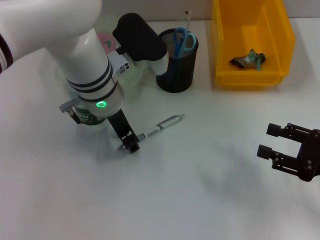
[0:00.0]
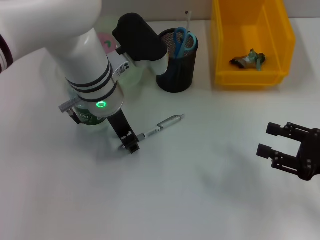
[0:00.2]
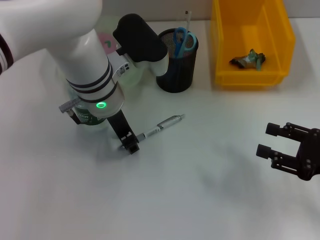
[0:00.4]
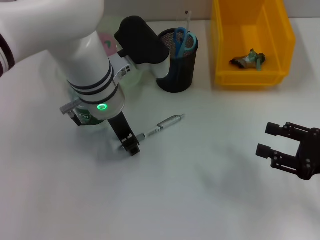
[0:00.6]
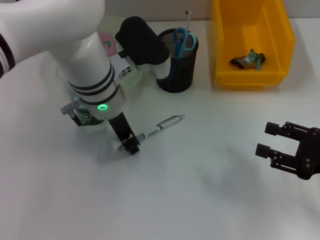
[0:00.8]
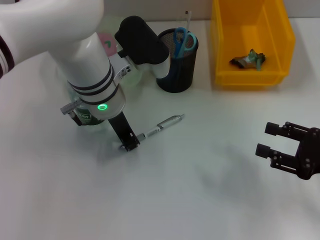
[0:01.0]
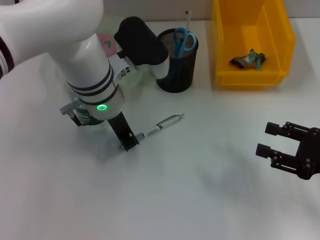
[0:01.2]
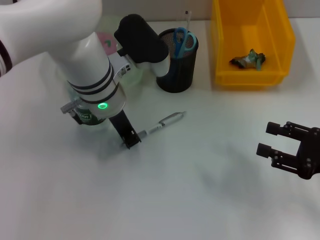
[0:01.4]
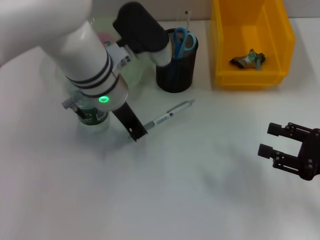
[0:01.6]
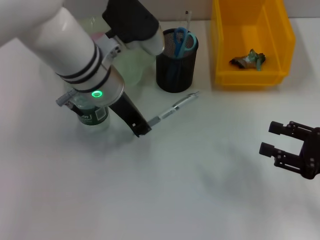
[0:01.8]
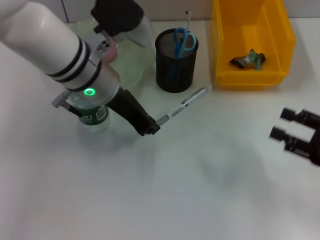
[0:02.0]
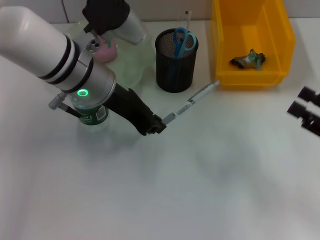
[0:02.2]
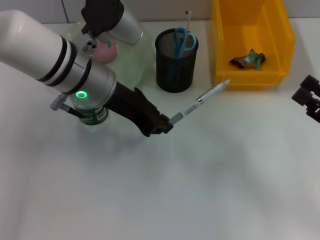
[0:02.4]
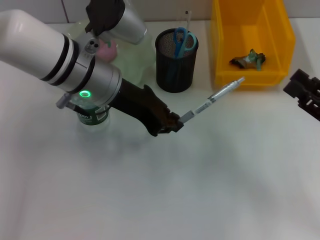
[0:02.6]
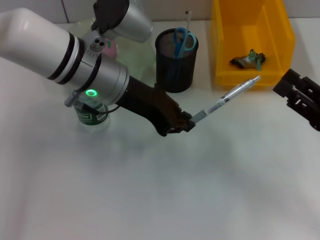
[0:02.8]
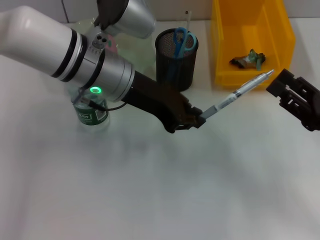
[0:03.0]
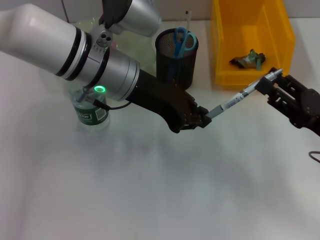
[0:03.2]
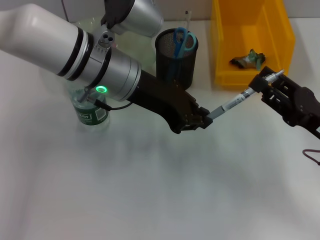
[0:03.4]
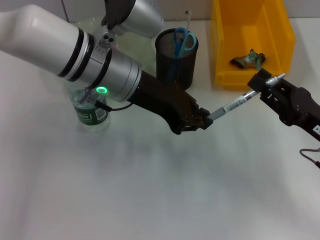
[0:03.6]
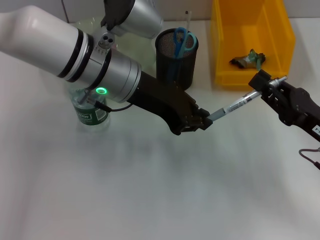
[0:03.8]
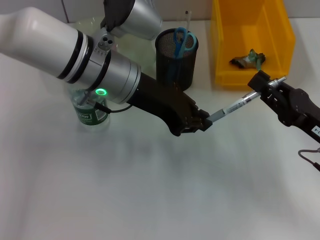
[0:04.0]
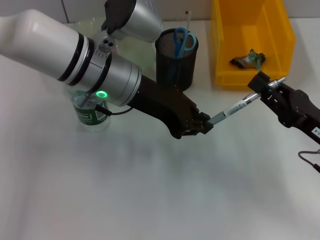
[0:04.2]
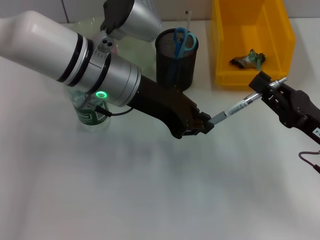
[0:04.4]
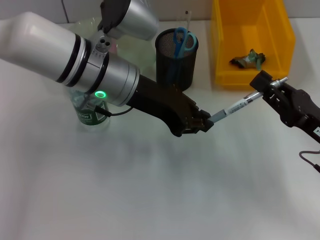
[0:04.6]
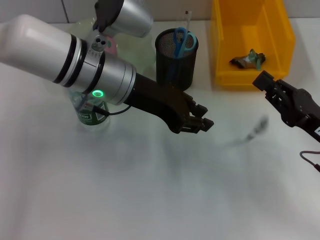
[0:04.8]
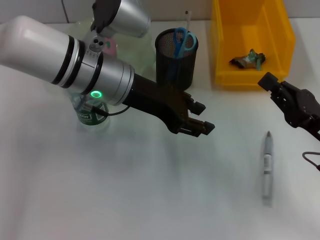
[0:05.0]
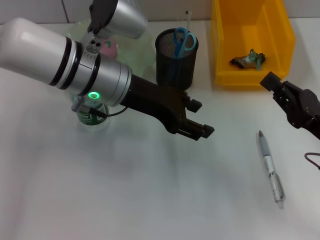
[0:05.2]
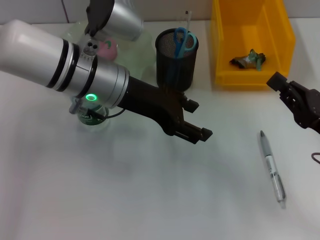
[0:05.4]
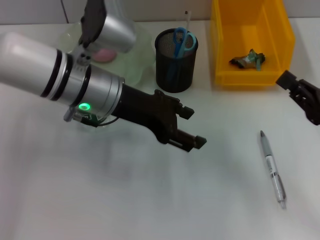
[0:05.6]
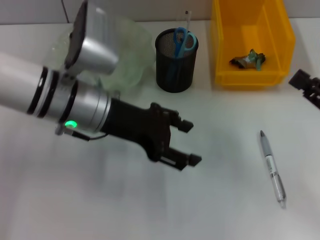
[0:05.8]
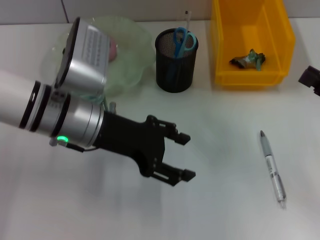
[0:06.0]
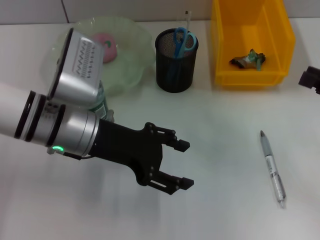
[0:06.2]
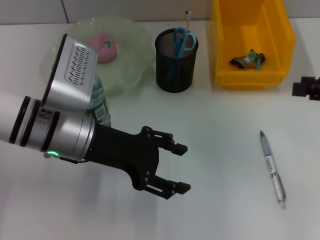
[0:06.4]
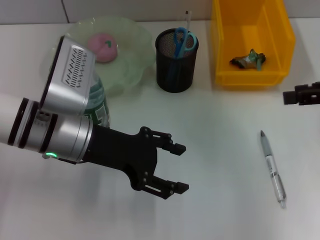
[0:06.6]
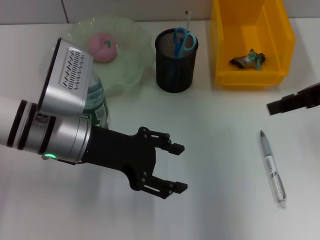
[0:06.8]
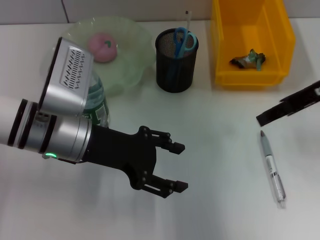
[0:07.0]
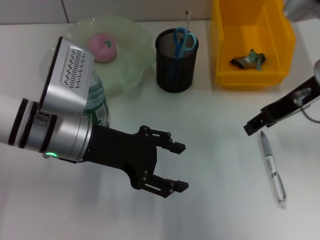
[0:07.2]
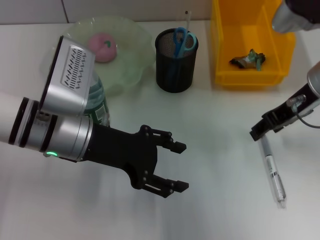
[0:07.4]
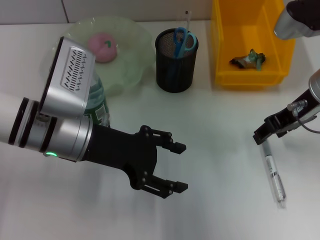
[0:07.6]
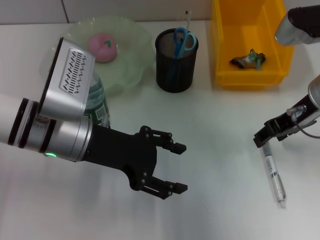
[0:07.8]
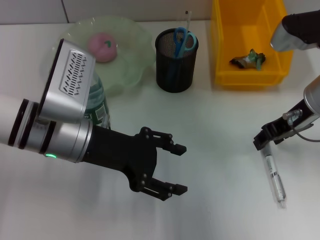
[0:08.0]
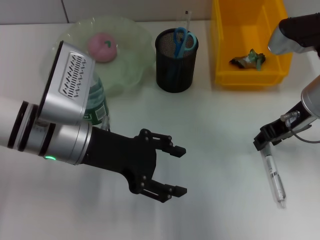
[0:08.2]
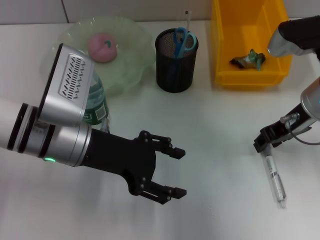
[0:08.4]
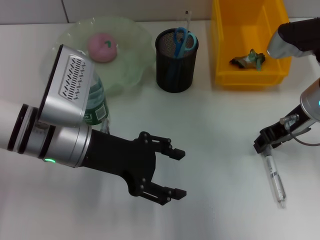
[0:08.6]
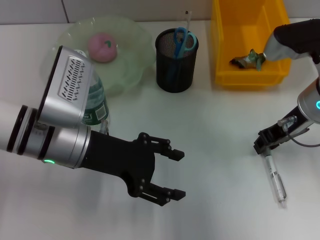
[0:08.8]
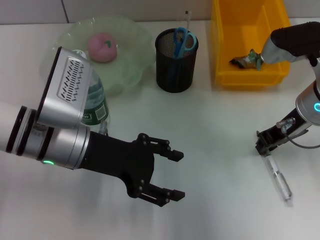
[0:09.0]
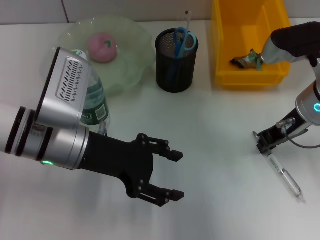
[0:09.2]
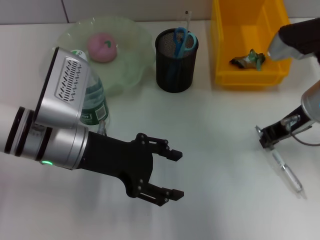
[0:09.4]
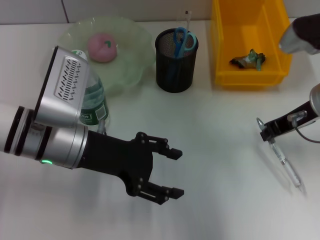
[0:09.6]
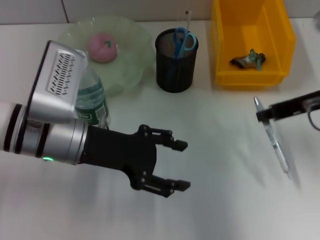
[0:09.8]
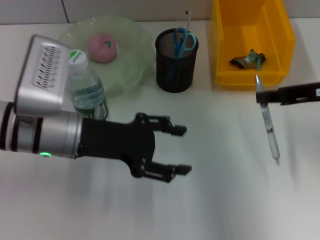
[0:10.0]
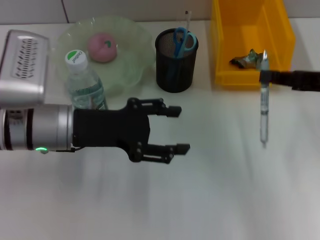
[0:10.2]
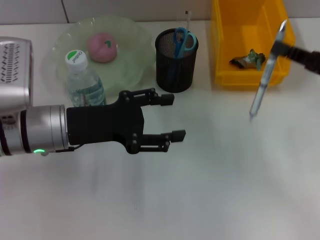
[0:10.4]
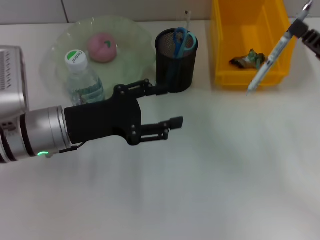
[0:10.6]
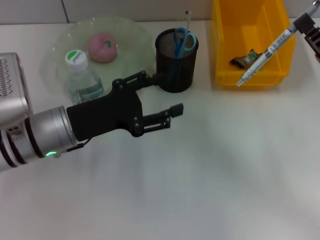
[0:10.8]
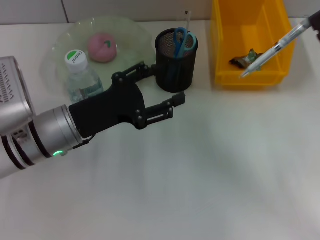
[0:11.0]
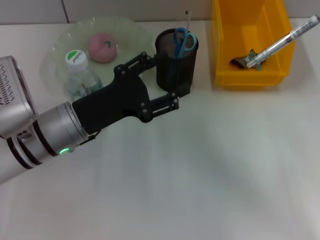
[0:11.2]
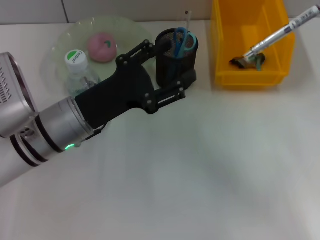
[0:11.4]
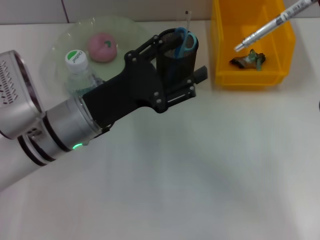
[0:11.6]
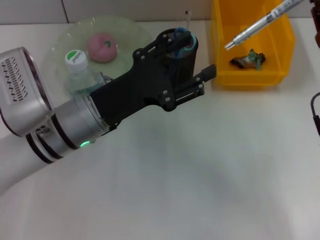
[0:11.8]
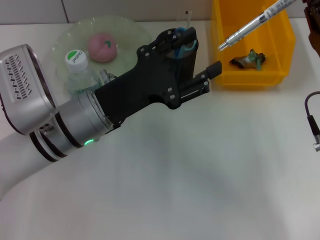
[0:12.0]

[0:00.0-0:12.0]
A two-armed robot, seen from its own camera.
Step, 0:00.0 to 0:04.6: Pass the gray spring-action pen from the left hand to the right hand.
Step, 0:05.0 to 0:09.0: Grab the gray spring-action pen with the right hand.
0:00.0 to 0:01.6: The left gripper closes up.
0:03.0 to 0:04.4: The right gripper closes its fingers.
0:04.4 to 0:06.0: The right gripper goes some 10 cm to the right. Meanwhile the left gripper shifts about 5 cm to the left, and opens its fingers.
0:06.0 to 0:07.6: The right gripper heads to the left, forward and upward, covering some 20 cm.
0:07.6 to 0:09.0: The grippers move only a little.
0:09.0 to 0:10.4: The right gripper heads to the right and backward, covering about 10 cm.
0:10.4 to 0:12.0: The left gripper heads to the right, covering about 5 cm. The right gripper moves to the left, approximately 10 cm.

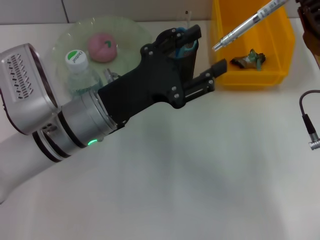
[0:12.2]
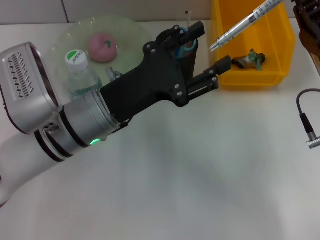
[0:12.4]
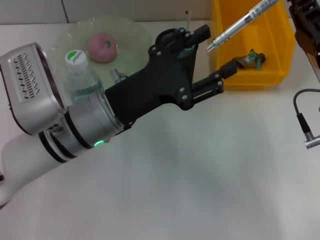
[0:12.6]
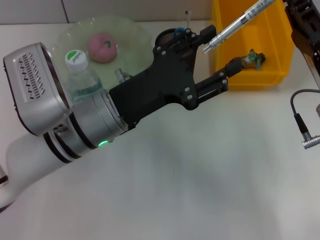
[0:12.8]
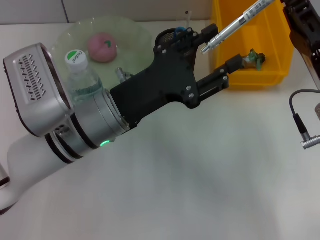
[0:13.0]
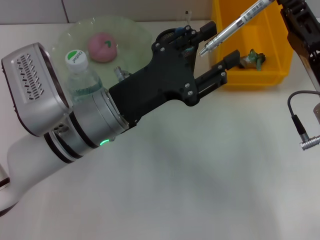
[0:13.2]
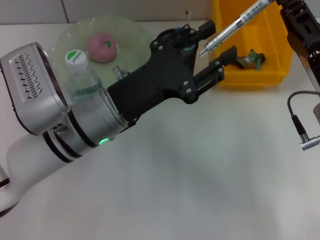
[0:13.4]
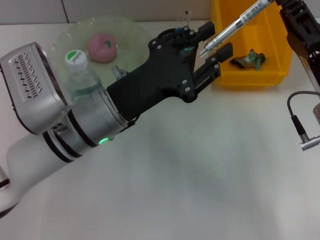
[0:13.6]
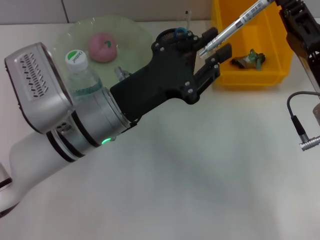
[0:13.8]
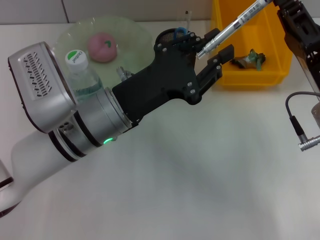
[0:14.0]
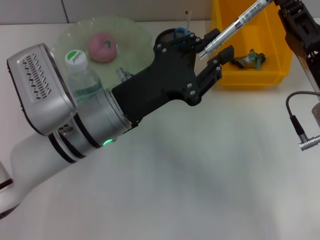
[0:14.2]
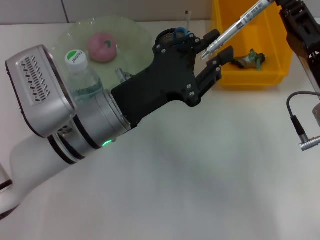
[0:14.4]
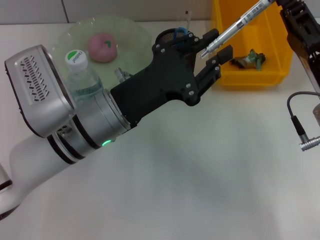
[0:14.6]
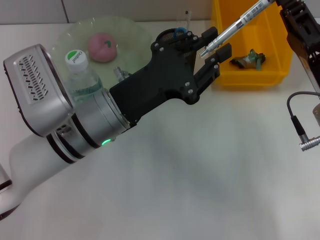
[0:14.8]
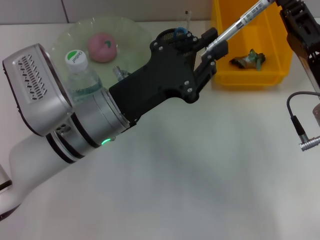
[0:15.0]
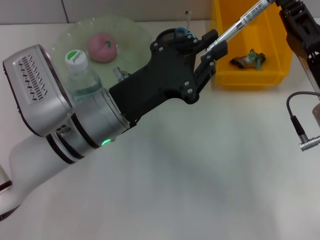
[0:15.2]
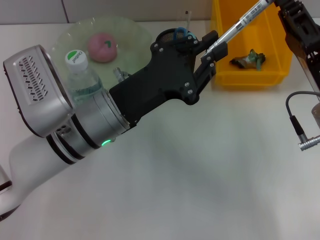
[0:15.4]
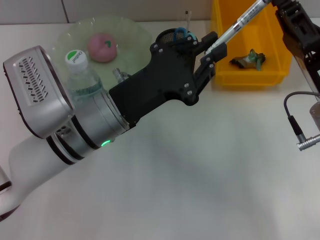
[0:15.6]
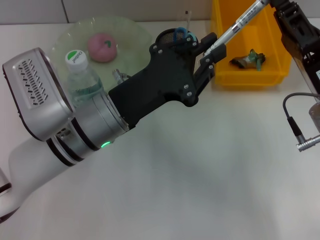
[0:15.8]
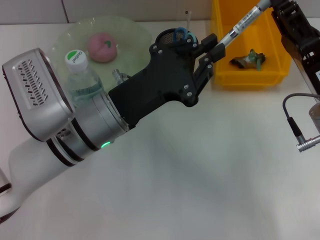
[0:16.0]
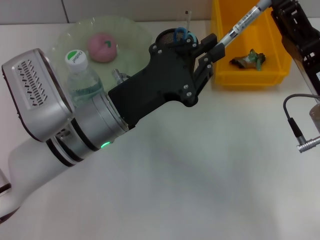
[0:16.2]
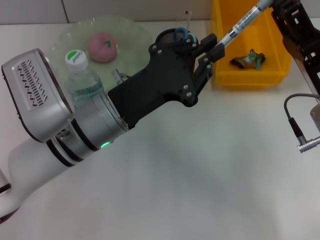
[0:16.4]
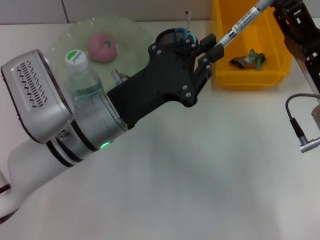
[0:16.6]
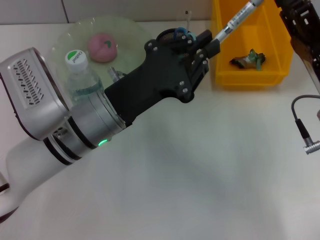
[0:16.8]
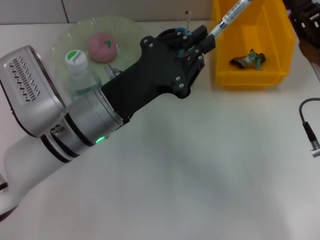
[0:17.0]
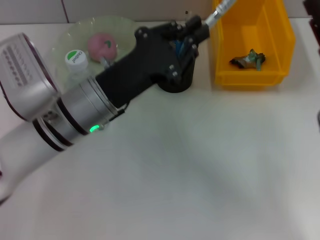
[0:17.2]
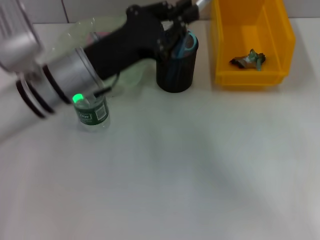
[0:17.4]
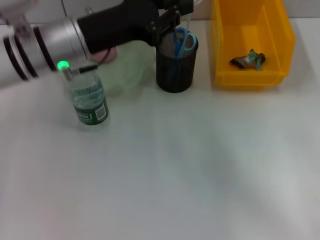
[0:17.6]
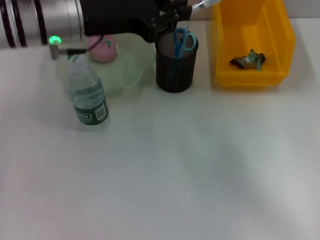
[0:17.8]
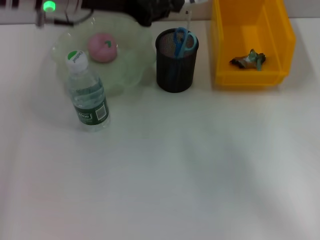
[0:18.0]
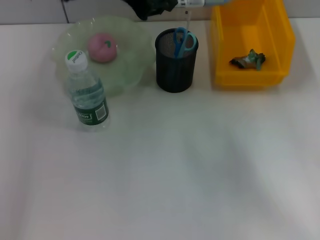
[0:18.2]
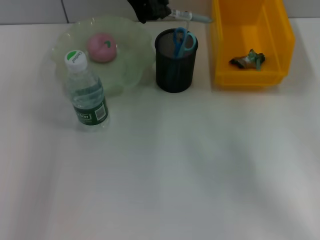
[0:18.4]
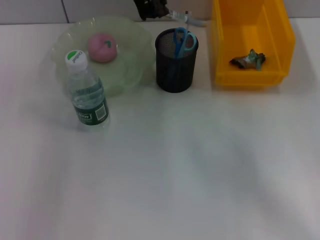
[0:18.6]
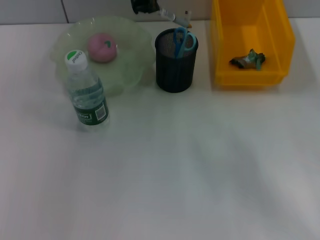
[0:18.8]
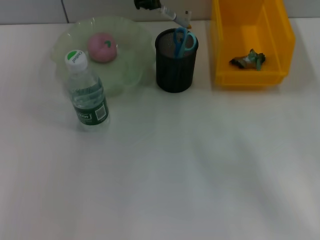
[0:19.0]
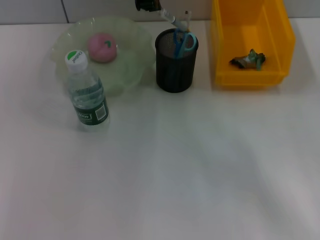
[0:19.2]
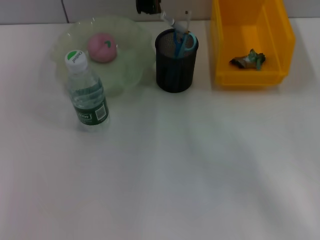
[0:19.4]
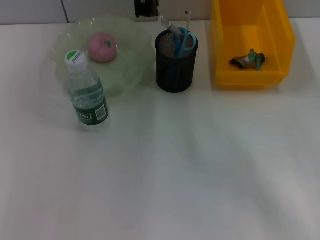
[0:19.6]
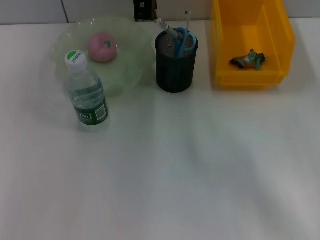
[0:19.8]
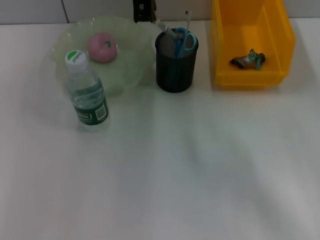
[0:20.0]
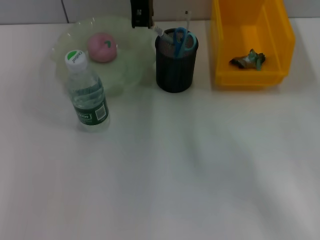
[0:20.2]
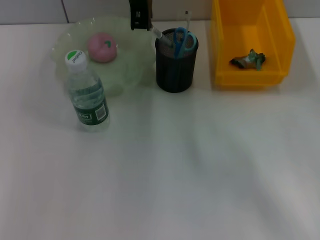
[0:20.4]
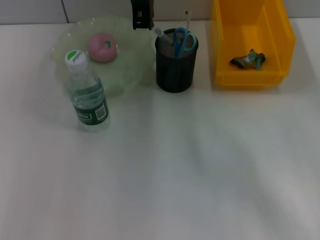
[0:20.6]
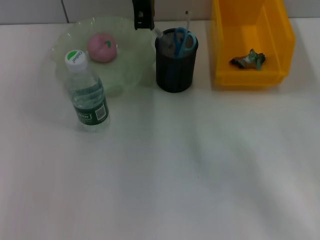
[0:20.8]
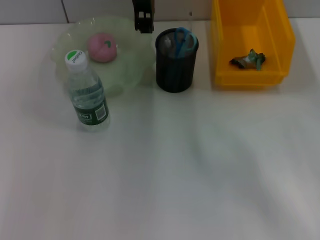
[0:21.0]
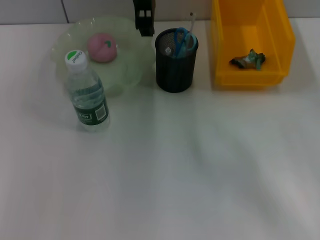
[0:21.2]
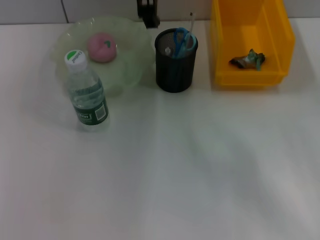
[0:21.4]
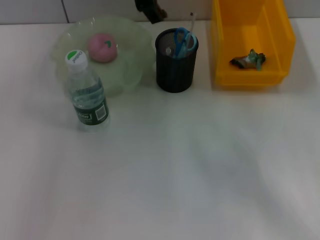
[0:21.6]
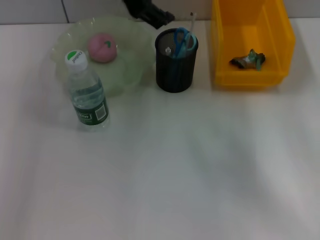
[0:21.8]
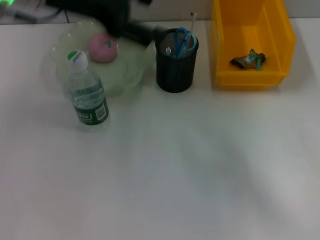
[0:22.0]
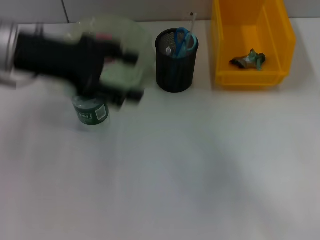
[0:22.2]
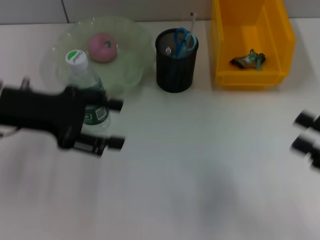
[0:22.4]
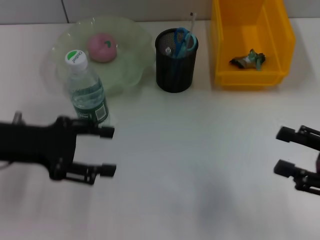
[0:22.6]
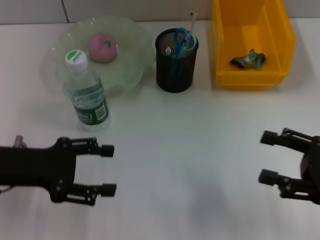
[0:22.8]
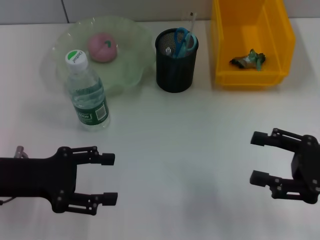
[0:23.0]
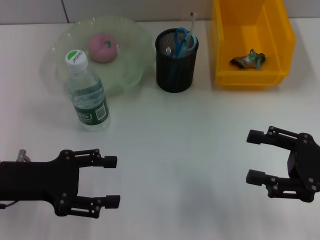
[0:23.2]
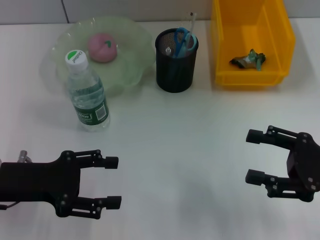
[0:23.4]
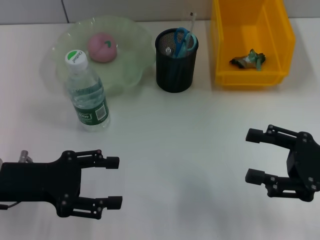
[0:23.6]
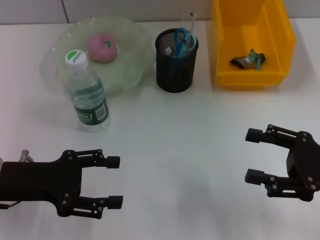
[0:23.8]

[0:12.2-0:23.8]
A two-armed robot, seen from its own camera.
Step, 0:12.2 to 0:16.8: Pass the gray glue from the right hand to the left hand.
Step, 0:17.0 to 0:21.0: Place the gray spring-action pen into the pen holder with the left hand.
0:12.2 to 0:13.6: The grippers make only small movements.
0:13.6 to 0:15.0: Both grippers stay put.
0:15.0 to 0:16.6: The right gripper opens.
0:16.6 to 0:18.0: The left gripper travels upward and forward by about 20 cm; the right gripper heads to the right and backward, covering some 10 cm.
0:18.0 to 0:19.4: The left gripper travels to the right and upward by approximately 15 cm.
0:21.0 to 0:22.4: The left gripper shifts roughly 30 cm to the left, downward and backward, and opens.
0:22.4 to 0:23.8: The left gripper moves backward and downward, some 10 cm.
